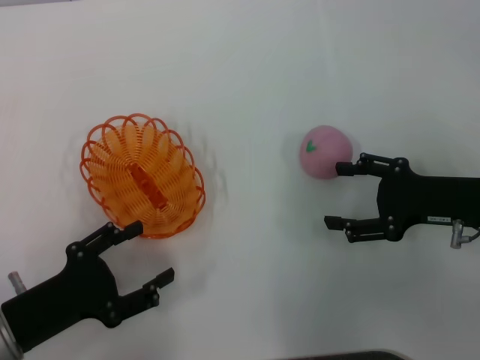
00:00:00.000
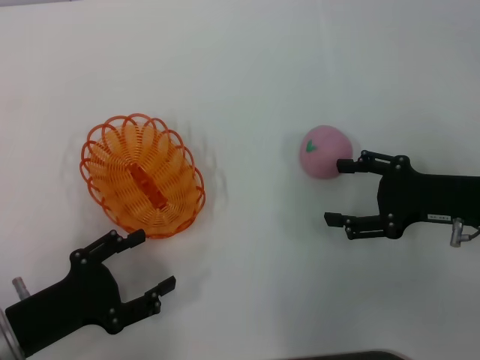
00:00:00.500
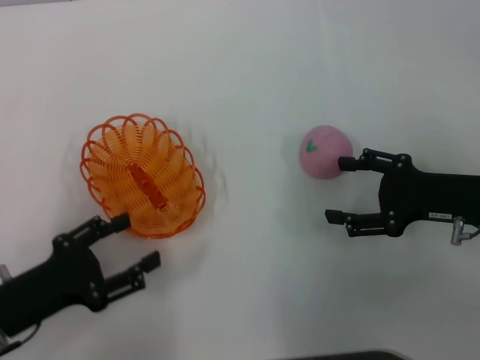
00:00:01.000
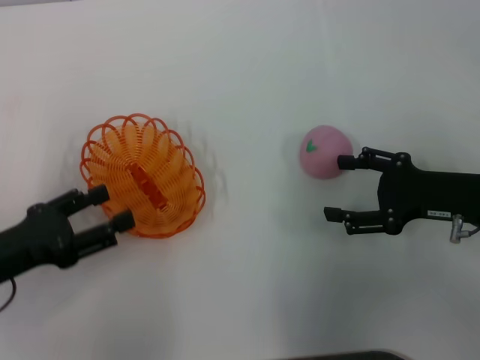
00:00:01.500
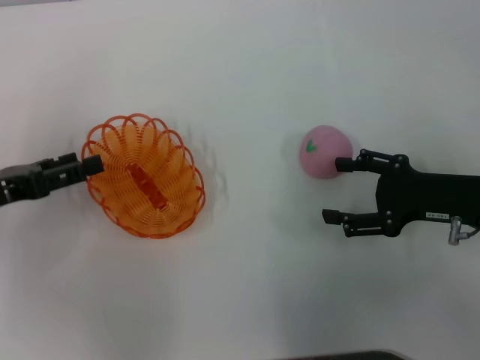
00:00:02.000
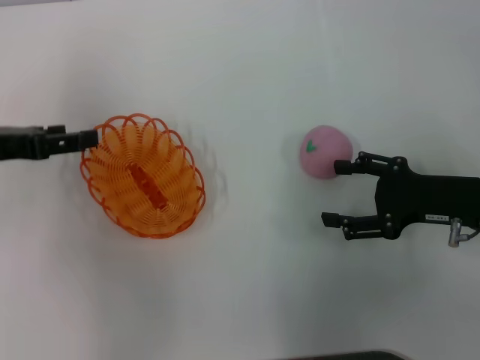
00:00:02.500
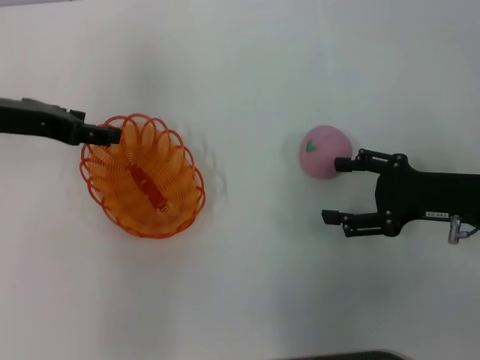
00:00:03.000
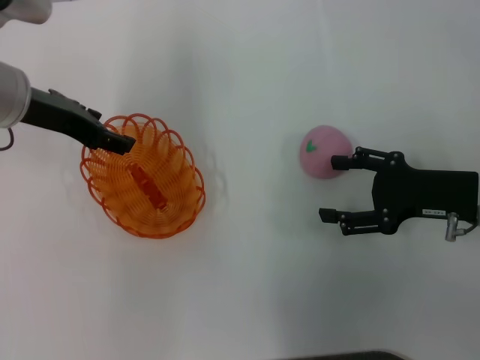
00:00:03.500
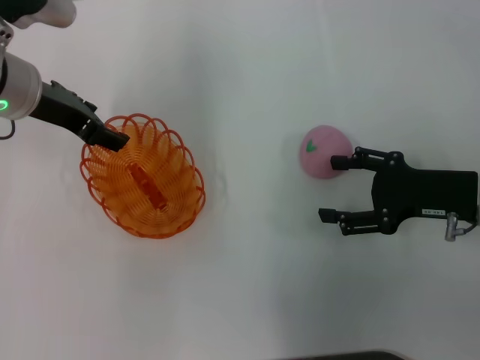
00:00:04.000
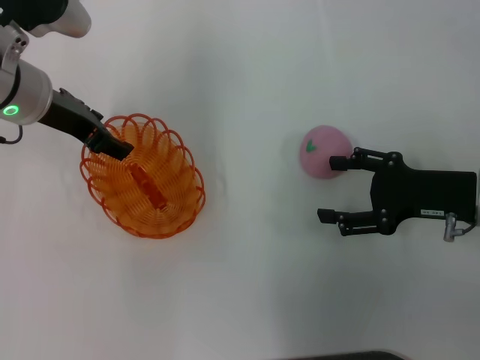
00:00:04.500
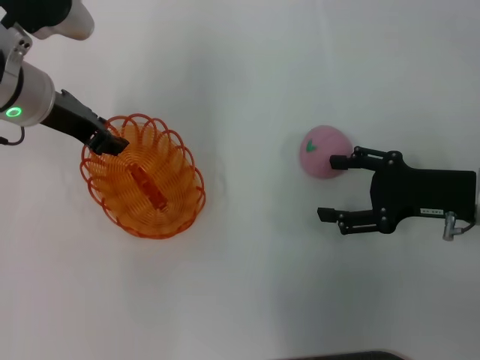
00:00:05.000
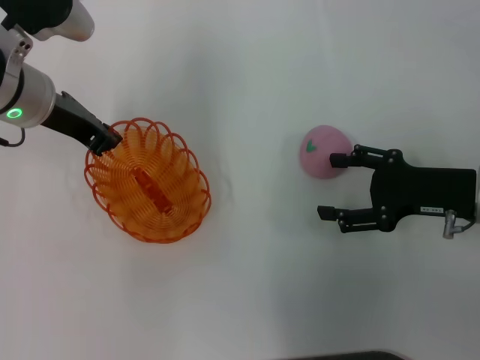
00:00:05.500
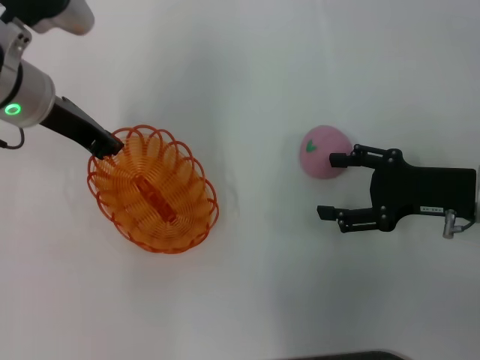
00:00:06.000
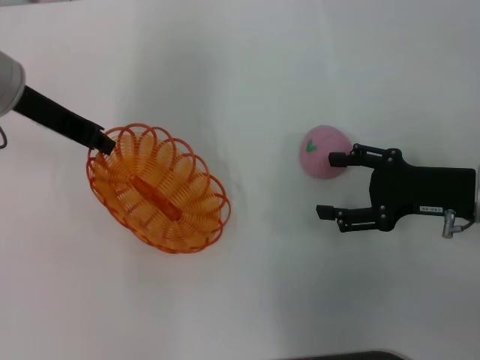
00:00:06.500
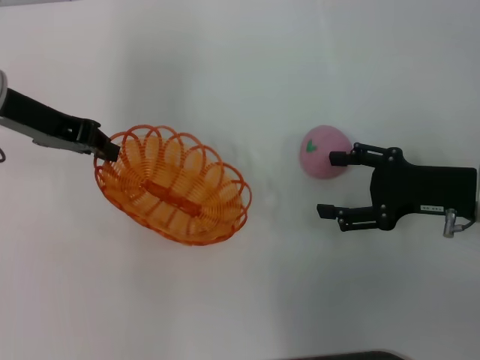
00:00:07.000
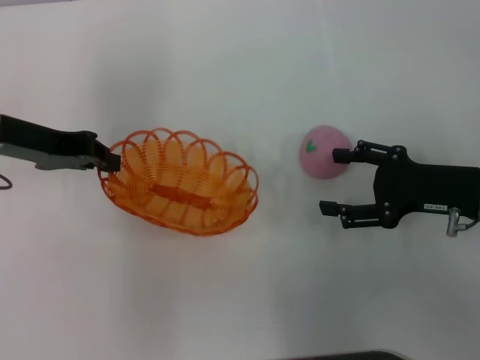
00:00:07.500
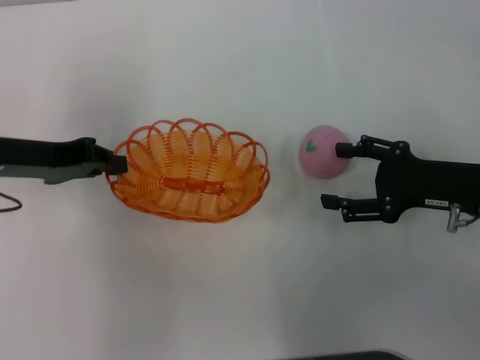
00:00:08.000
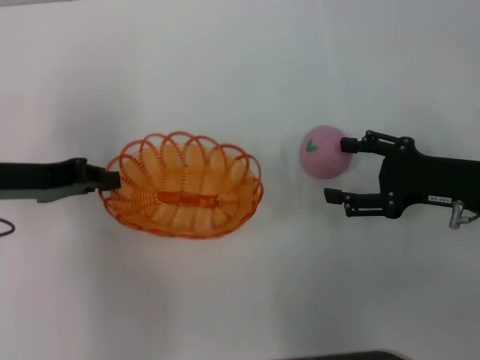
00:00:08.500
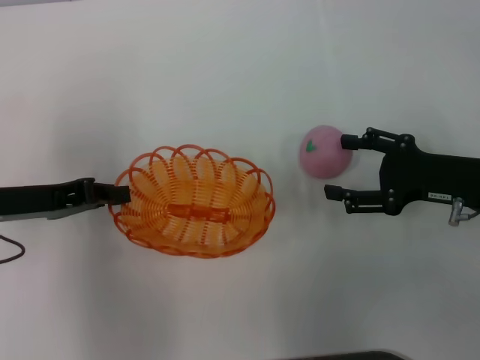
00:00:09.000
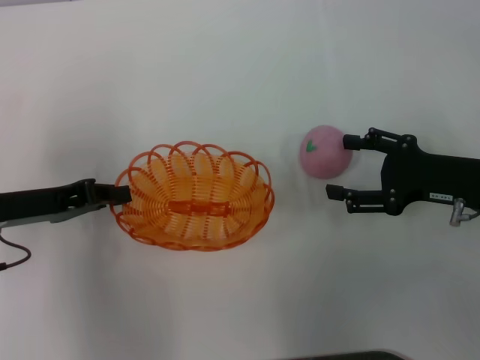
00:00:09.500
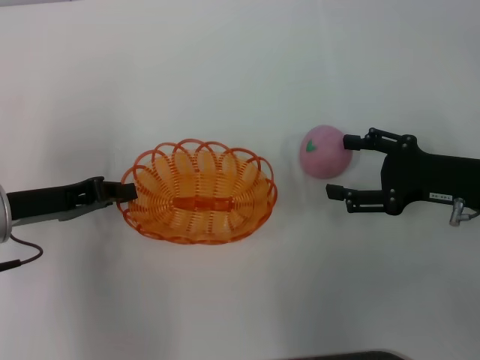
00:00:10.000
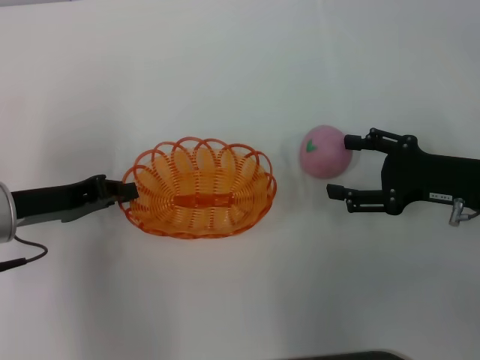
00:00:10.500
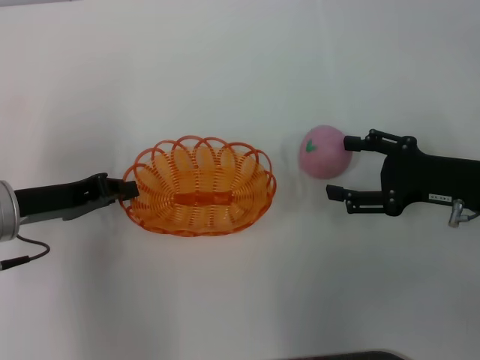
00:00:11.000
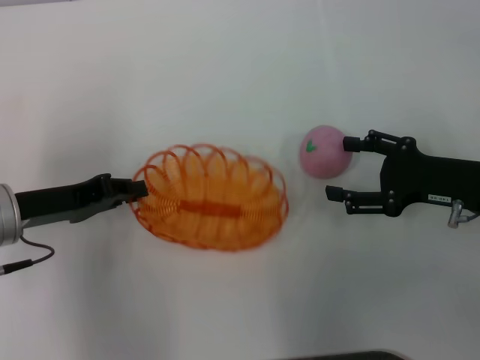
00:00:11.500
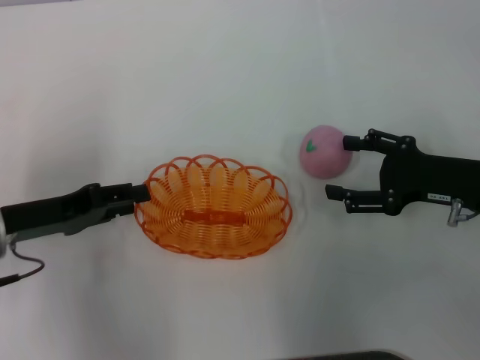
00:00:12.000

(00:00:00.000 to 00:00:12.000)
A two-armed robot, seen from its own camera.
Step, 00:00:00.000 - 00:00:06.000: Pick up the basket with the left gripper.
00:00:00.000 - 00:00:02.000: The left gripper goes approximately 15 cm forward, upward and to the left.
00:00:02.000 - 00:00:04.000: The left gripper heads forward, to the right and upward, covering roughly 15 cm.
00:00:04.000 - 00:00:06.000: The left gripper closes its fingers.
00:00:06.000 - 00:00:08.000: The left gripper shifts approximately 10 cm to the left and backward.
00:00:08.000 - 00:00:10.000: The left gripper ends up some 5 cm from where it was.
00:00:10.000 - 00:00:12.000: The left gripper opens.

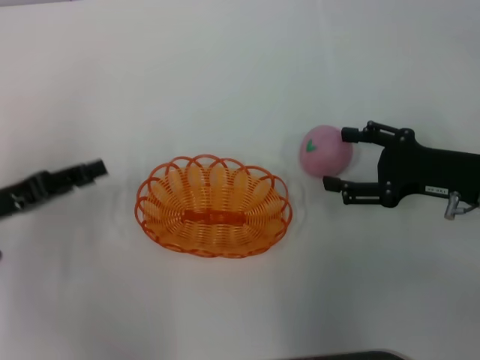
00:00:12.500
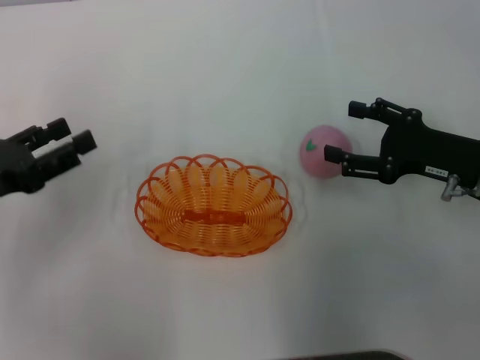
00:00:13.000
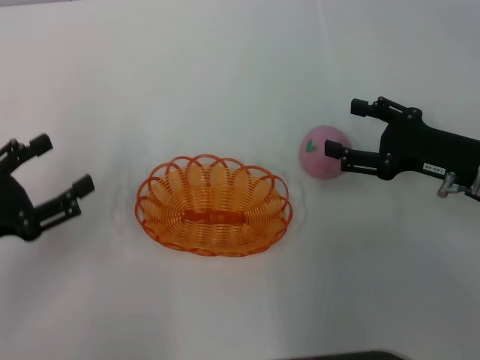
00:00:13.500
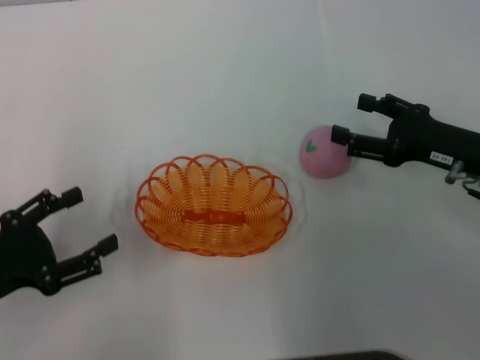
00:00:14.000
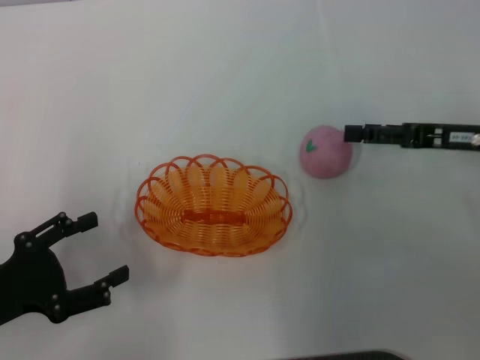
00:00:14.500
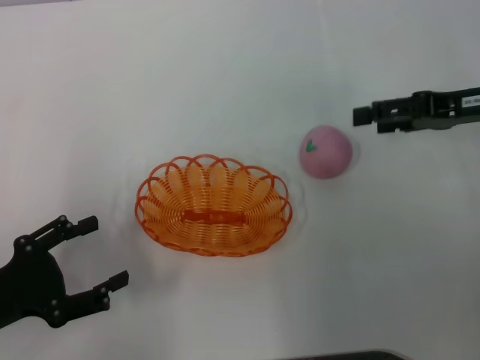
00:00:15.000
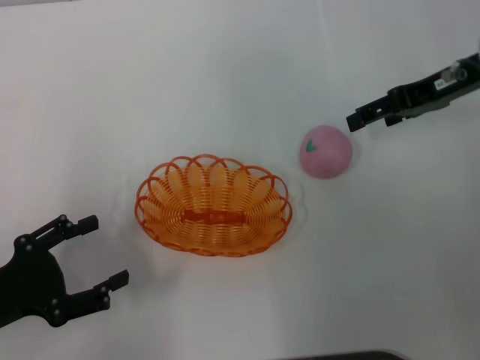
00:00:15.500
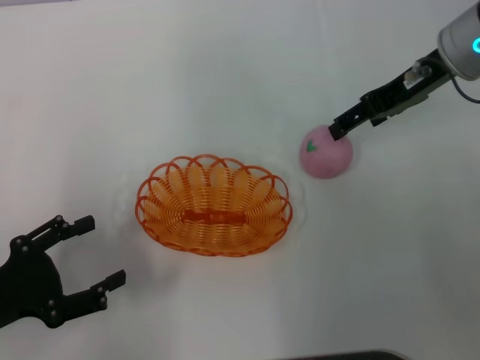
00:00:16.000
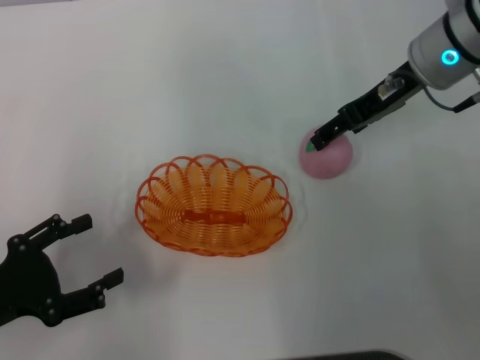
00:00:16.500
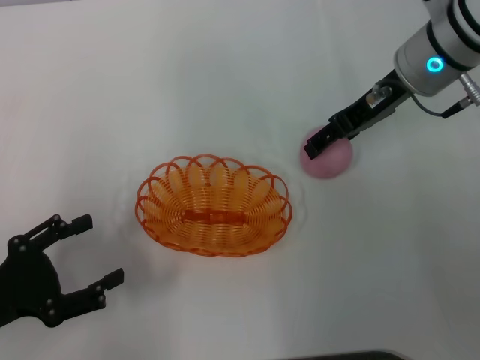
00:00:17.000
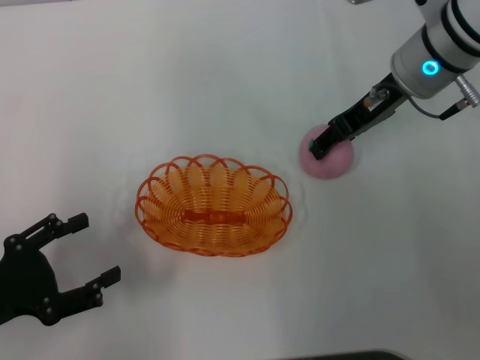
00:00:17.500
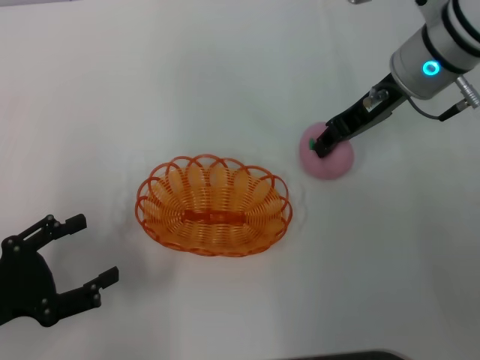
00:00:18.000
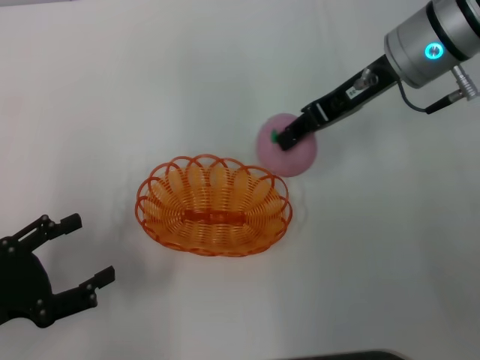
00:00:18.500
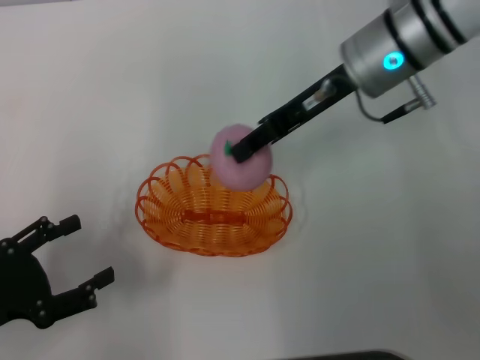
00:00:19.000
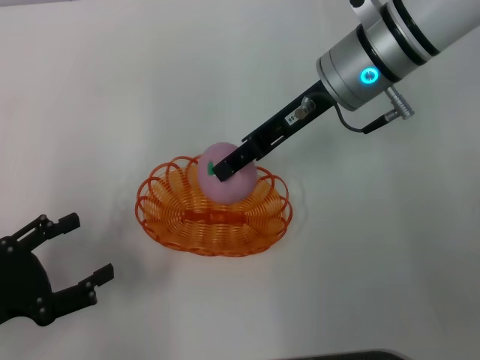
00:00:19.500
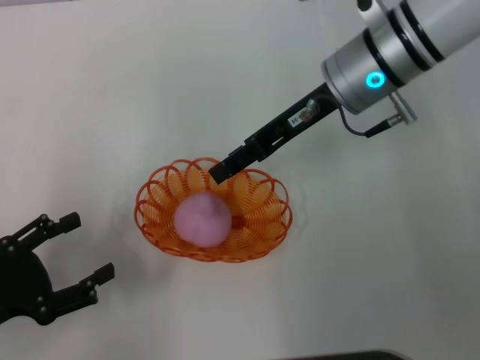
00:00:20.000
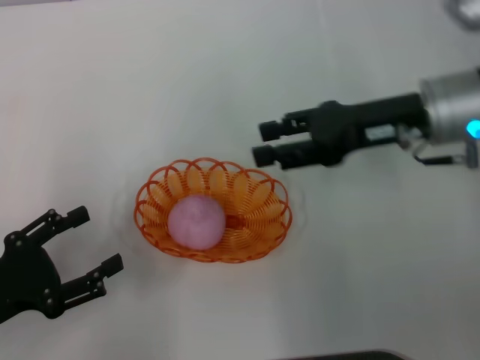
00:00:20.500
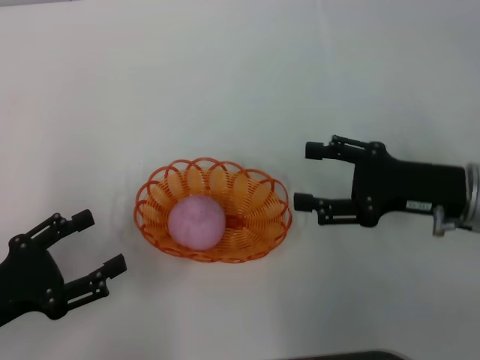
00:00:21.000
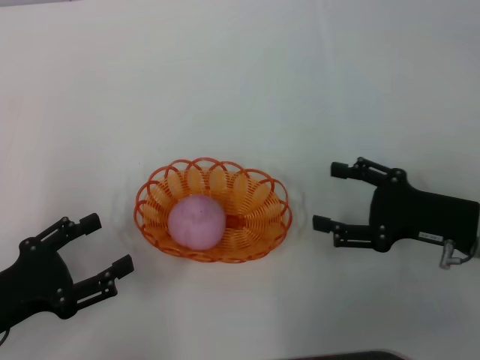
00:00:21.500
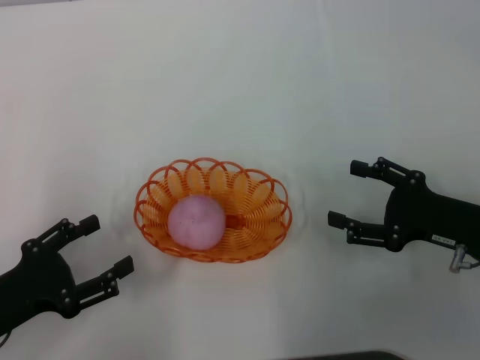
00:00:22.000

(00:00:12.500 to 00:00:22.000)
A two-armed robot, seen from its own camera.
Step, 00:00:12.500 - 00:00:18.000: Pick up the peach with the right gripper.
Step, 00:00:18.500 - 00:00:21.000: Place the peach into the basket with the right gripper.
00:00:12.500 - 00:00:14.500: The right gripper ends up roughly 5 cm from where it was; the left gripper heads backward, covering some 5 cm, and opens.
00:00:14.500 - 00:00:16.500: The right gripper moves to the left, forward and upward, approximately 15 cm.
00:00:16.500 - 00:00:18.000: The right gripper closes up.
00:00:18.000 - 00:00:20.000: The right gripper is displaced to the left by some 5 cm, and opens.
00:00:20.000 - 00:00:22.000: The right gripper moves backward, to the right and downward, roughly 25 cm, and opens its fingers.
